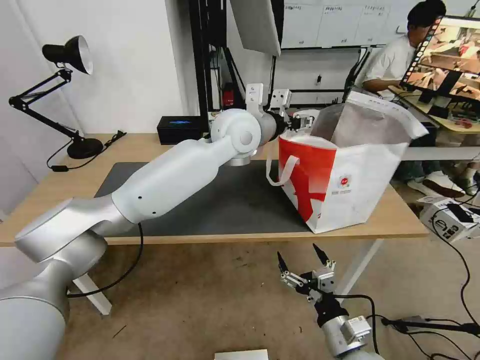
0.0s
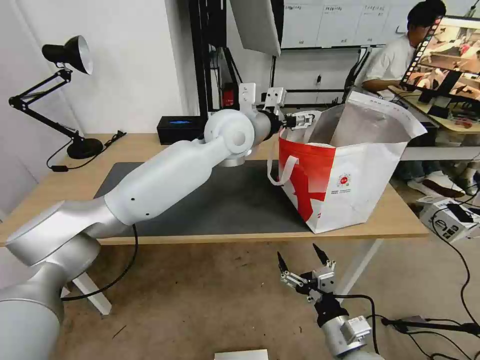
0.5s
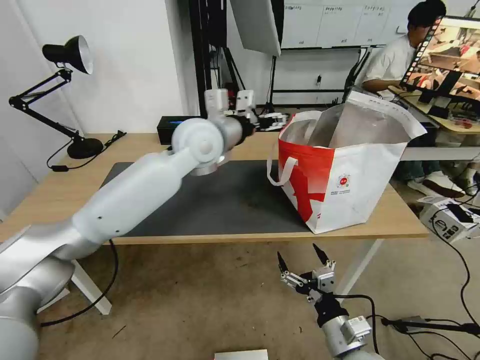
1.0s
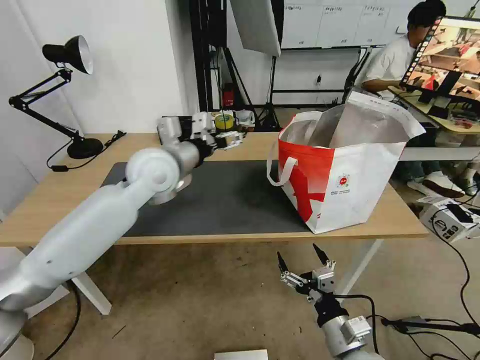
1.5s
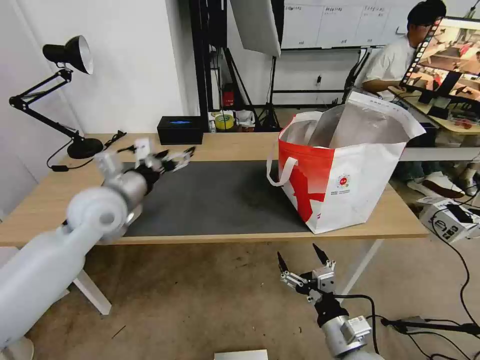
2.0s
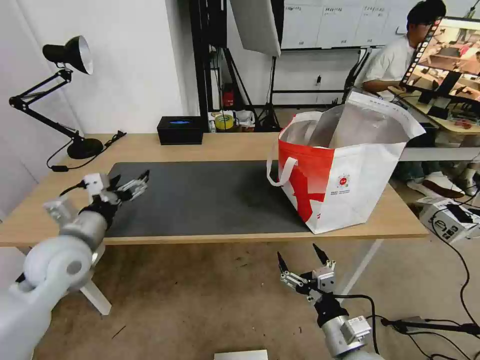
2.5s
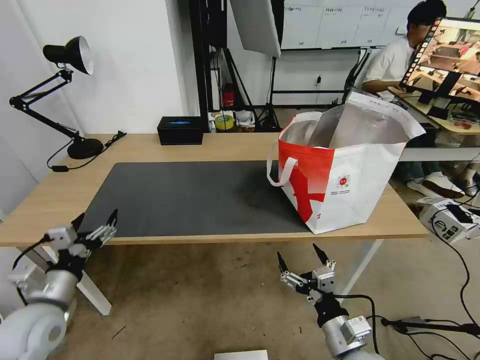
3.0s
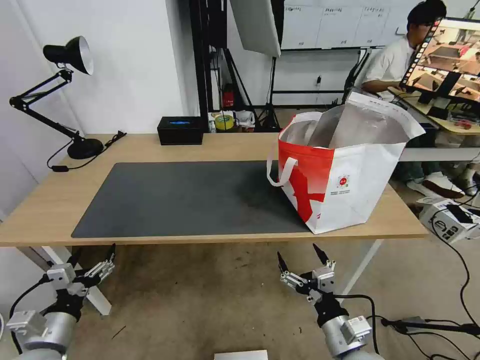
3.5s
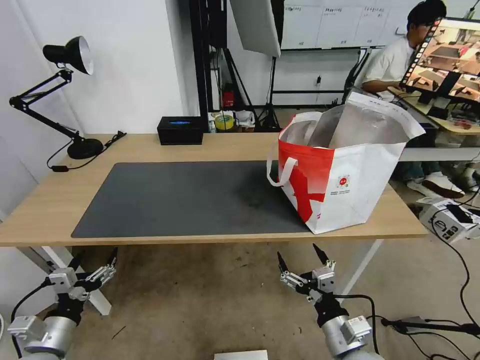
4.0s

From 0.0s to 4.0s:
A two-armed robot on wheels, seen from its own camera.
Task of the whole recording: Pick up the trash from the table and place it into the takeout bag.
From 0.0s to 2.0s: The left gripper shifts about 30 cm to the left and backward.
From 2.0s to 4.0s: The left gripper moves backward, downward and to the left, approximately 35 cm.

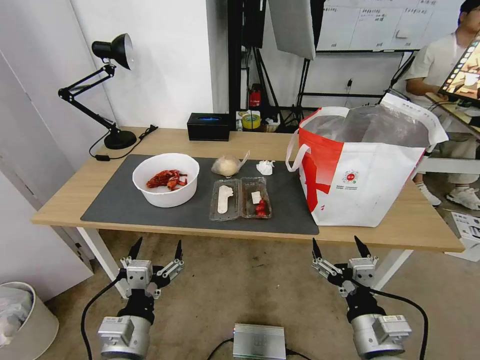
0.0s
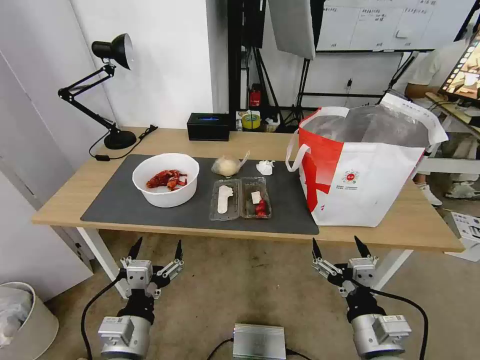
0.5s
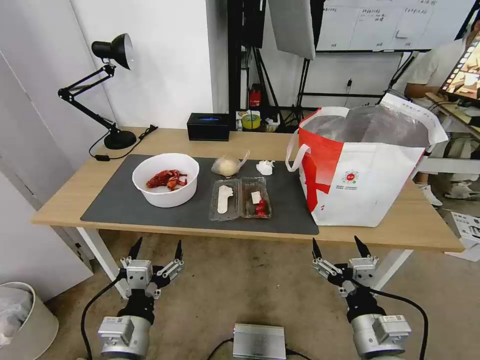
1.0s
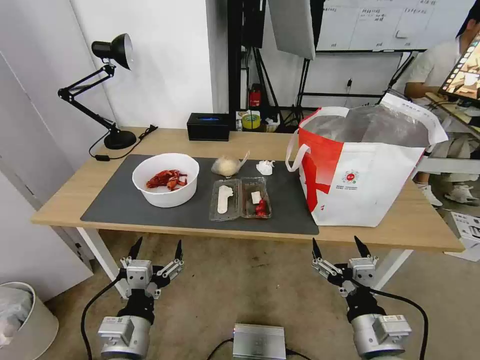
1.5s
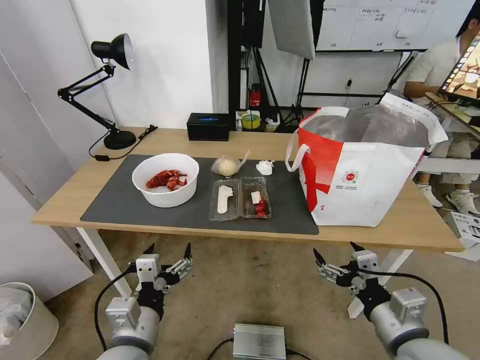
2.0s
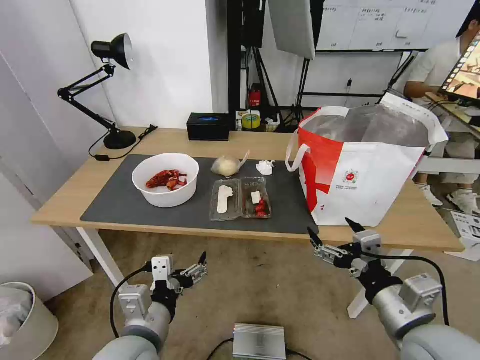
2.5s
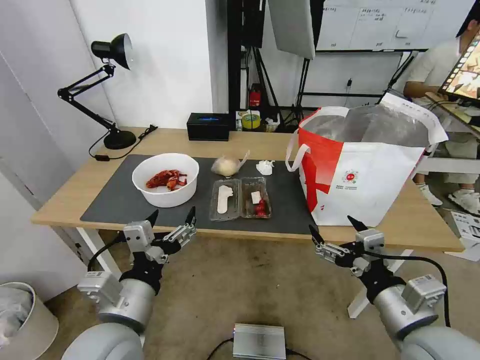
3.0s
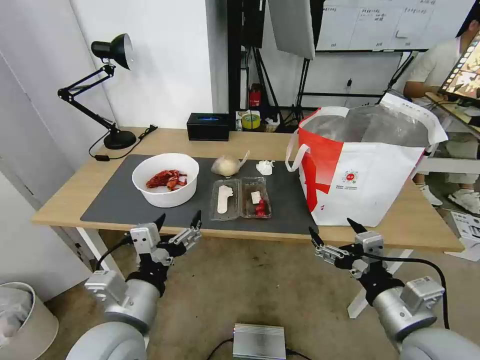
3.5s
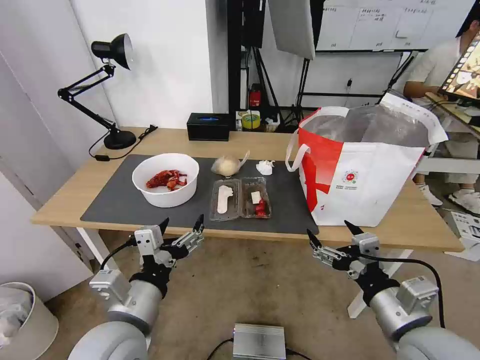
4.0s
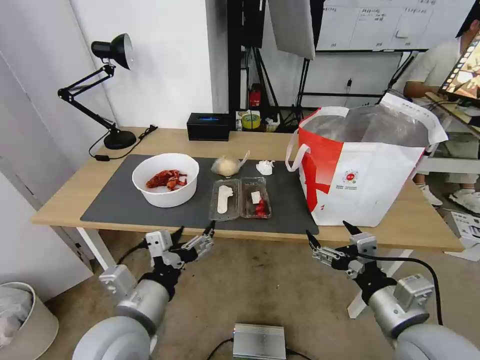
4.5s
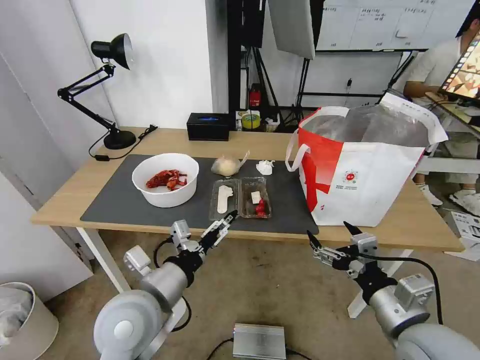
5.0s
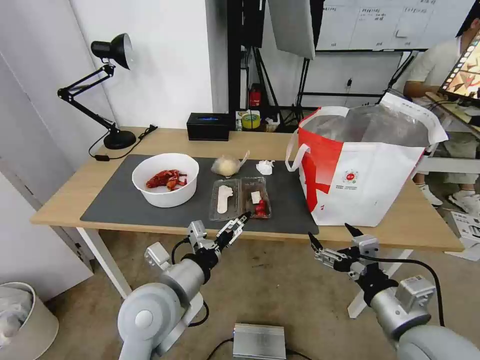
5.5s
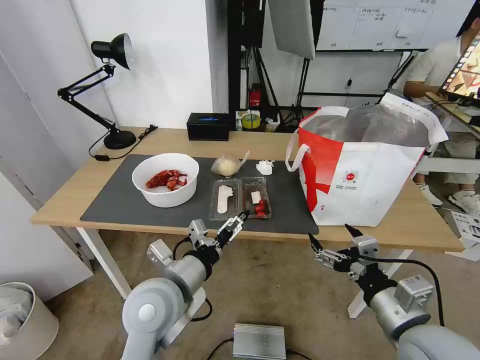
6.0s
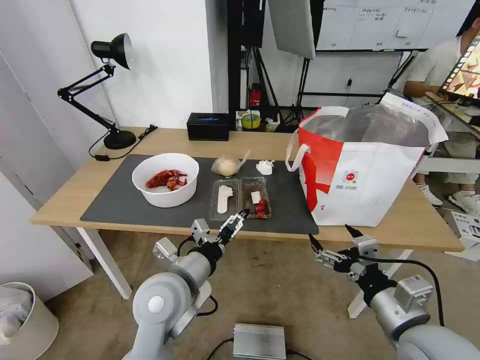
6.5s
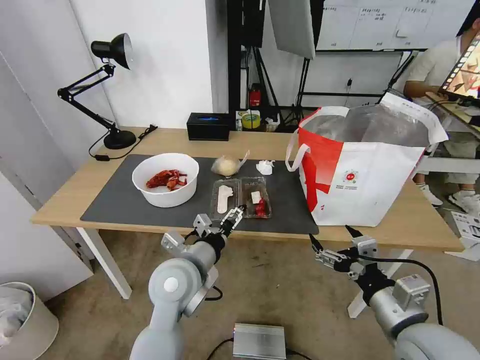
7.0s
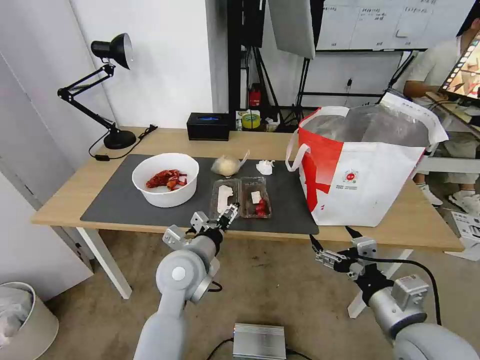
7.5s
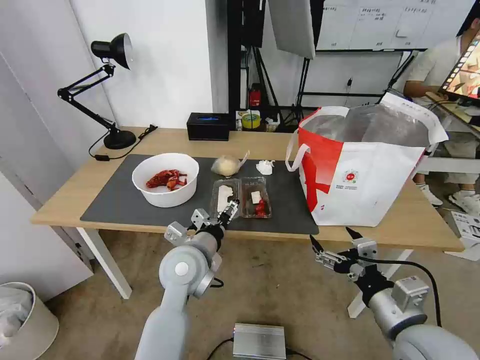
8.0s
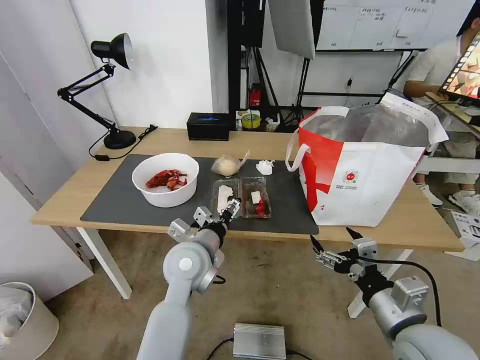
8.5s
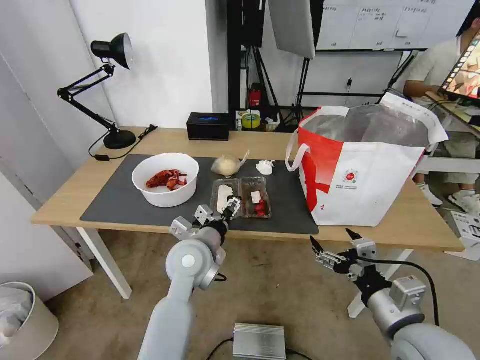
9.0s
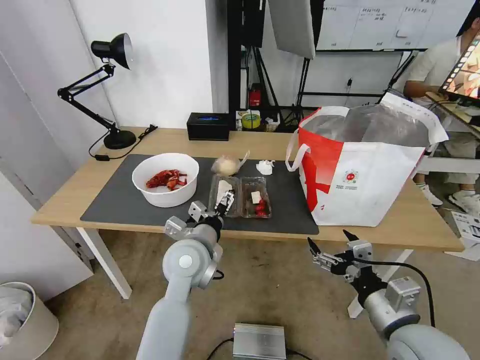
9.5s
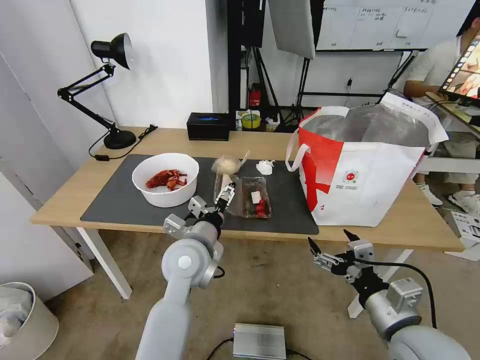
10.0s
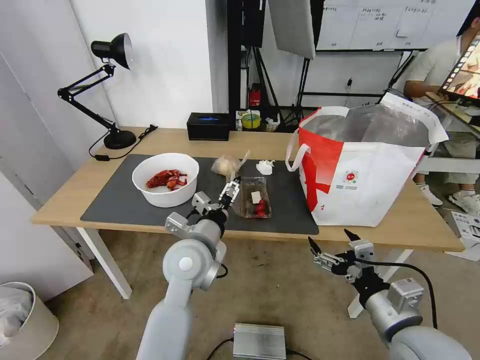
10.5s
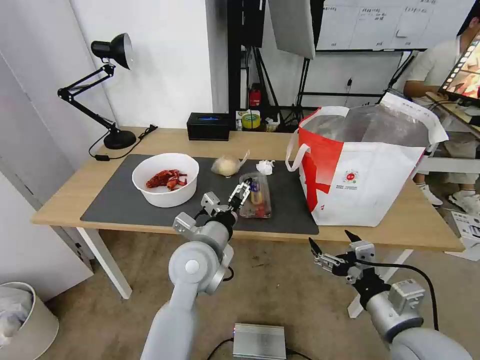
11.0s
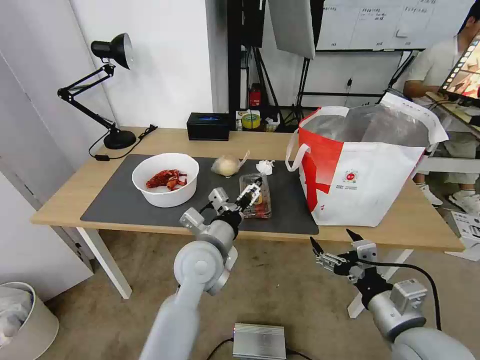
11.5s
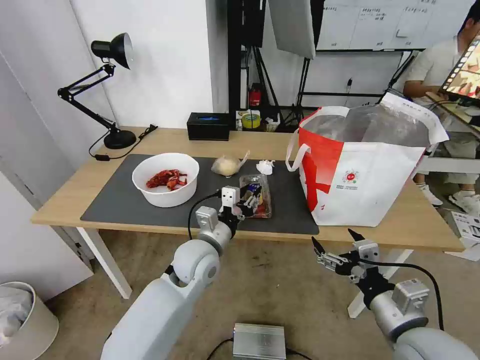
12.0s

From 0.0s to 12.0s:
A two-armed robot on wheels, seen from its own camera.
Task of the whole recording: Pick up the trash from the table and place it into the takeout bag.
From 2.0s to 4.0s: The left gripper travels upward by about 5 cm.
From 4.0s to 6.0s: The left gripper travels forward by about 5 cm.
From 6.0s to 8.0s: The left gripper goes about 10 cm forward.
From 8.0s to 10.0s: The grippers move only a little.
From 10.0s to 12.0s: The left gripper closes up.

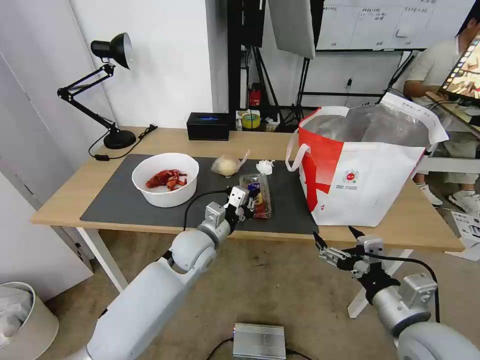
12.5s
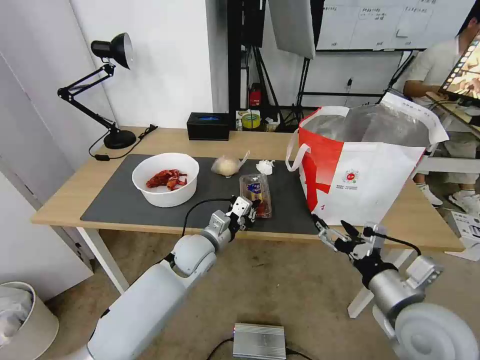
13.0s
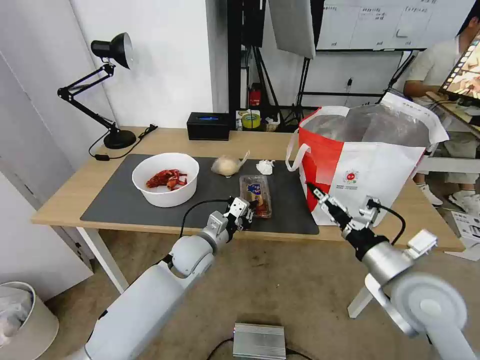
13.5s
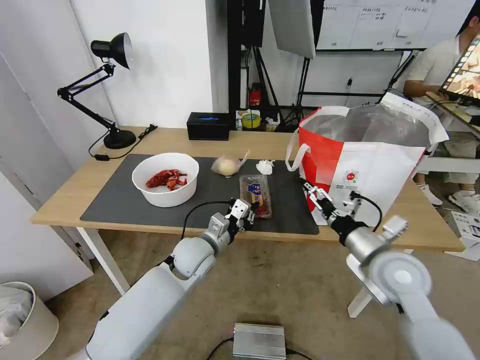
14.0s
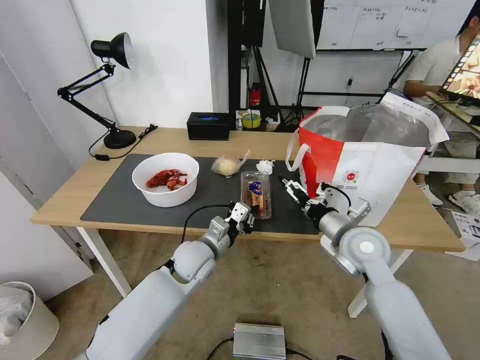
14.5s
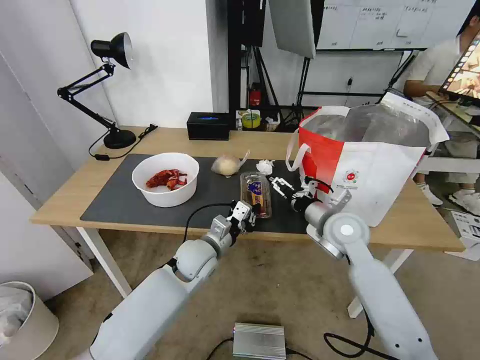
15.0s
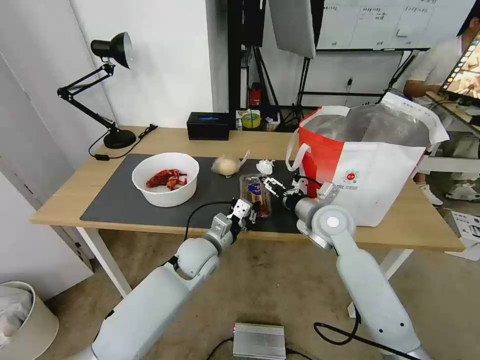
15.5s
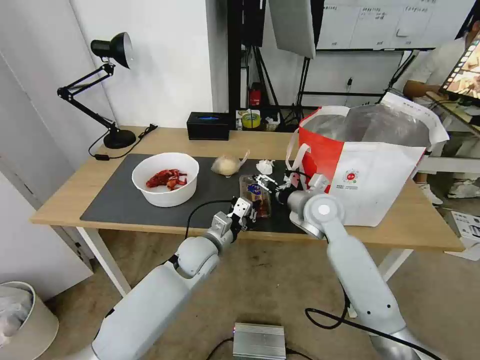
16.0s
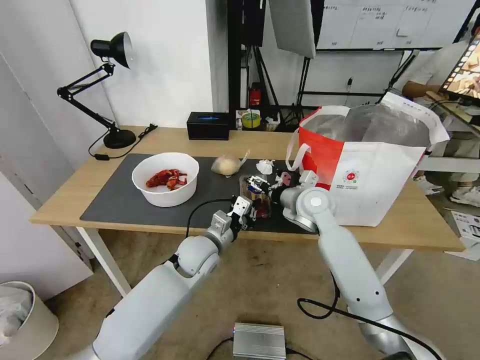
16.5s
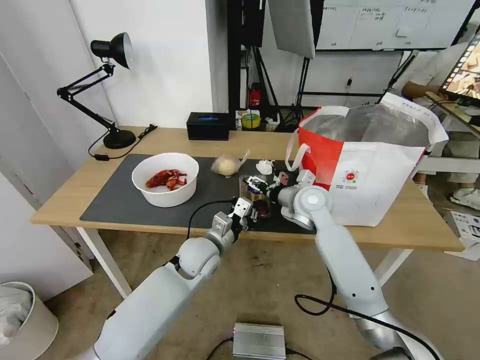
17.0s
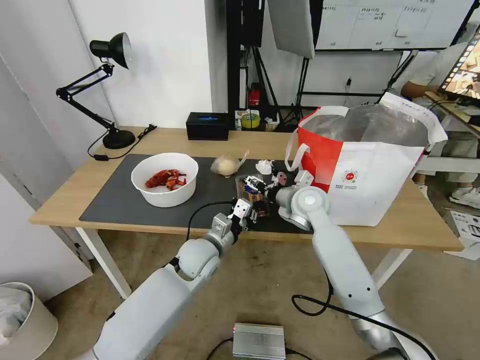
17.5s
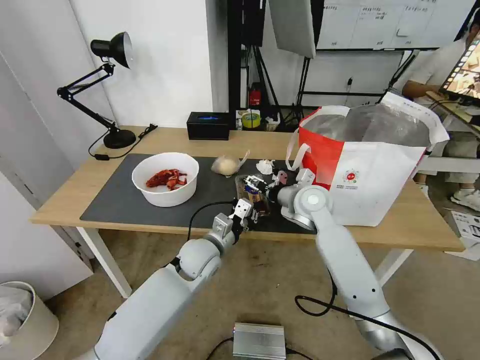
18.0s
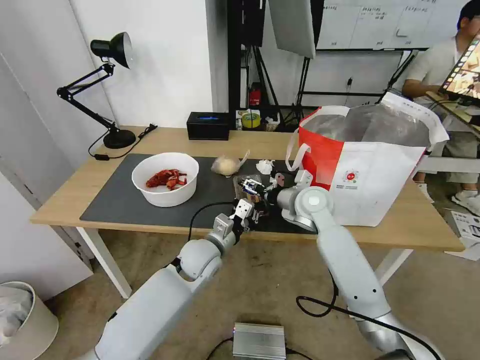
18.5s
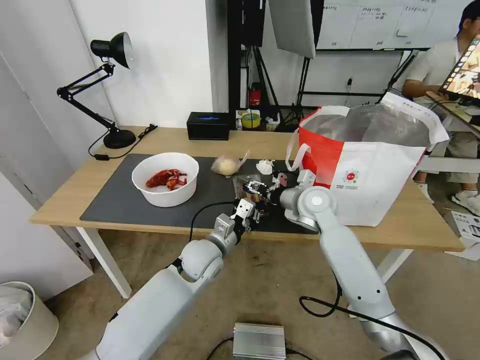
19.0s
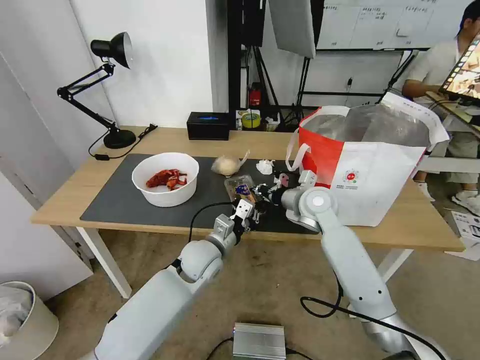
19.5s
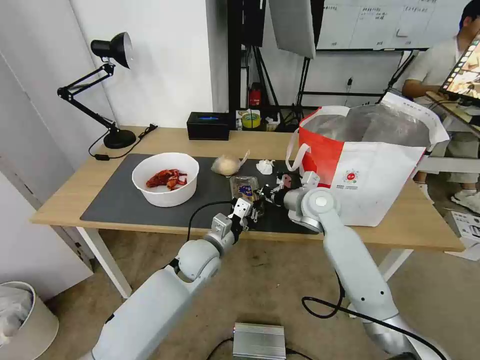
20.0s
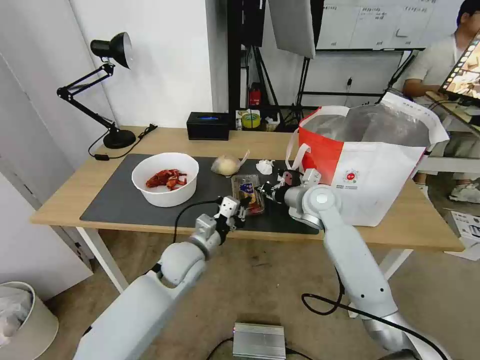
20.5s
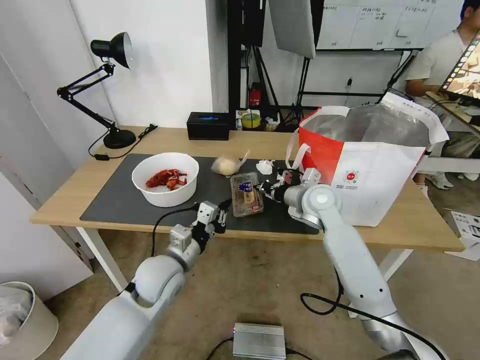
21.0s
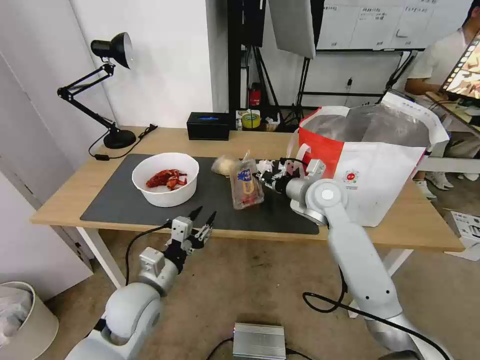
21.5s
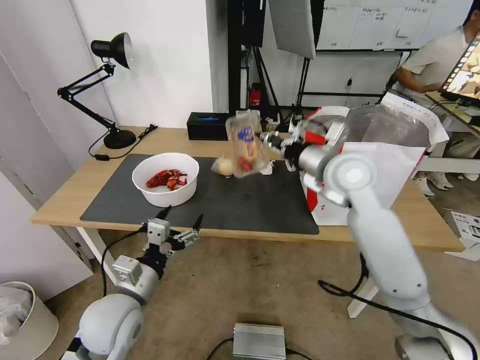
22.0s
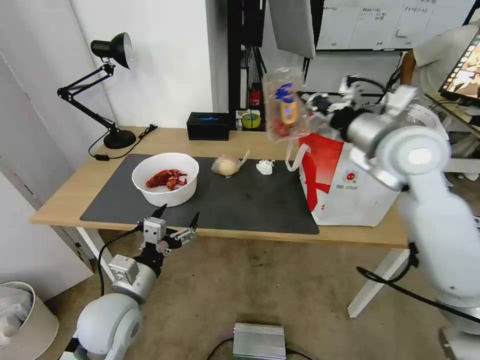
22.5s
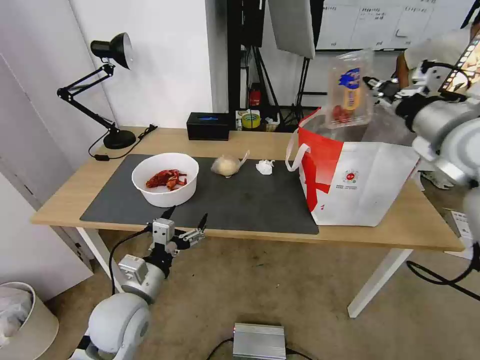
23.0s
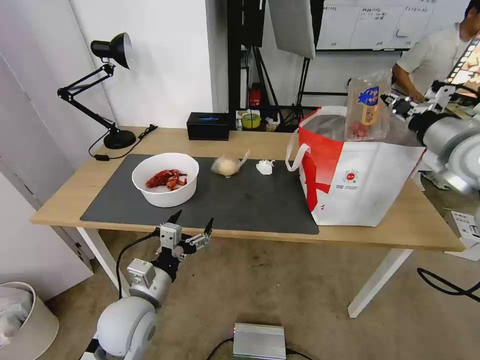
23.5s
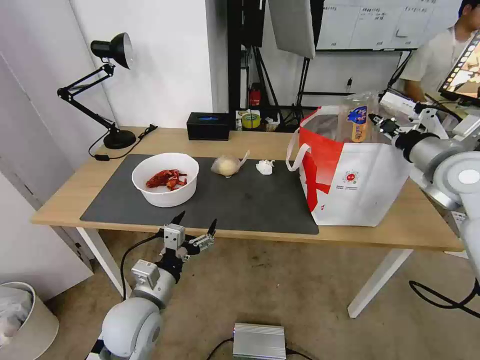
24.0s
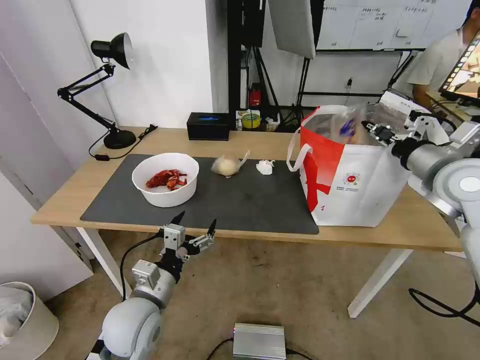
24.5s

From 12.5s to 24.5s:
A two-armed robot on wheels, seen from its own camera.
Task of the whole recording: Pick up the trash from the table and place it into the takeout bag.
From 12.5s to 14.5s: The right gripper moves forward, roughly 20 cm.
From 14.5s to 16.5s: The right gripper is displaced forward and to the left by approximately 15 cm.
From 16.5s to 18.5s: The grippers move only a little.
From 18.5s to 20.5s: The right gripper closes up.
From 20.5s to 22.5s: The right gripper goes approximately 20 cm upward, while the left gripper travels backward and to the left by some 15 cm, and opens its fingers.
From 22.5s to 24.5s: The right gripper travels to the right by some 10 cm.
